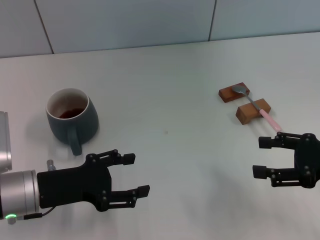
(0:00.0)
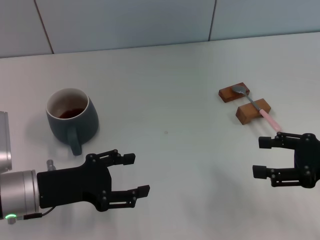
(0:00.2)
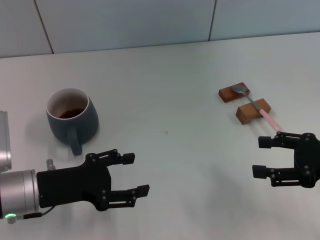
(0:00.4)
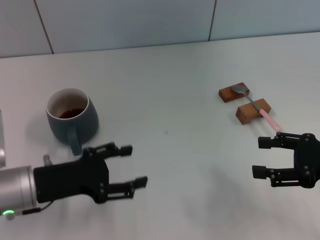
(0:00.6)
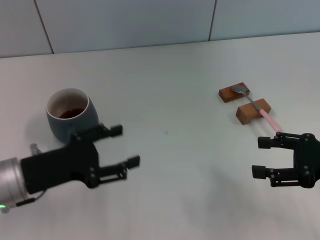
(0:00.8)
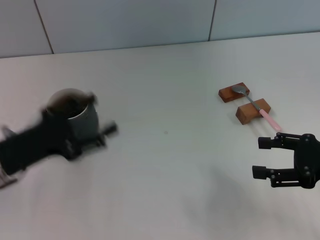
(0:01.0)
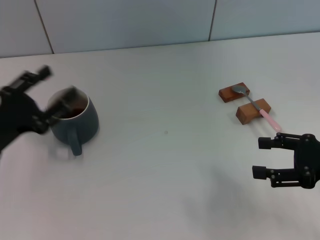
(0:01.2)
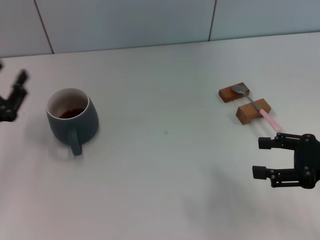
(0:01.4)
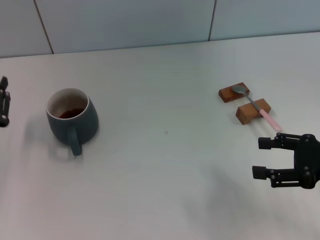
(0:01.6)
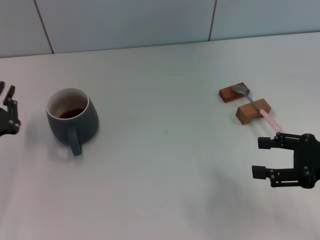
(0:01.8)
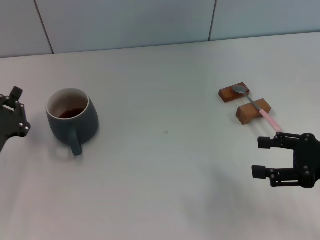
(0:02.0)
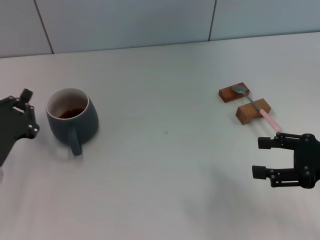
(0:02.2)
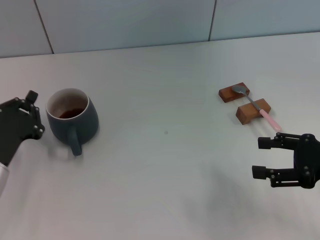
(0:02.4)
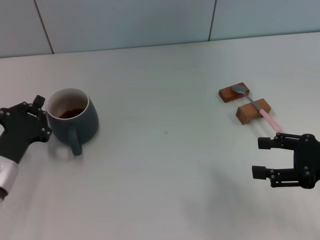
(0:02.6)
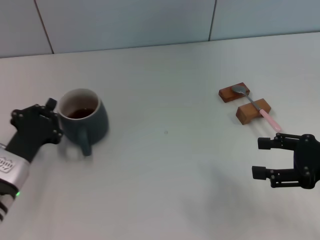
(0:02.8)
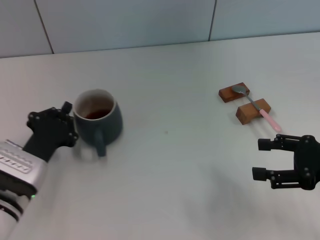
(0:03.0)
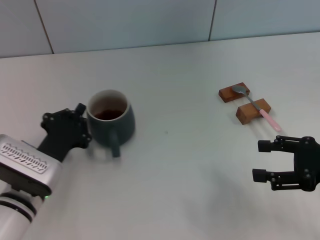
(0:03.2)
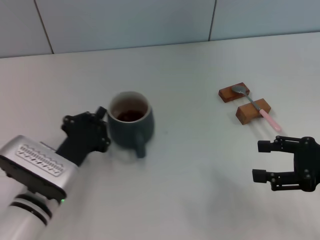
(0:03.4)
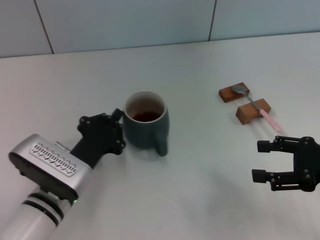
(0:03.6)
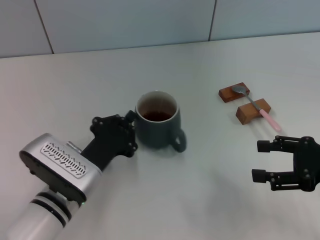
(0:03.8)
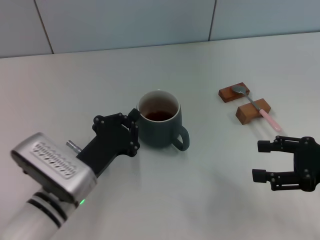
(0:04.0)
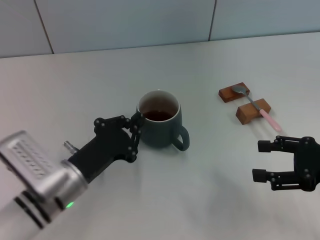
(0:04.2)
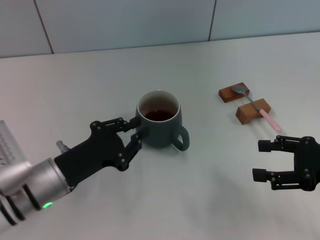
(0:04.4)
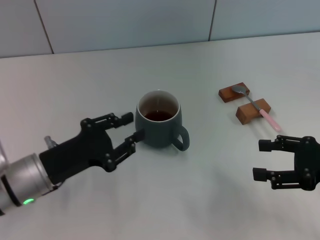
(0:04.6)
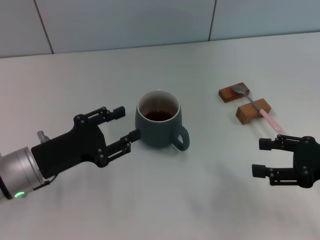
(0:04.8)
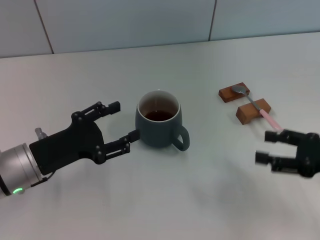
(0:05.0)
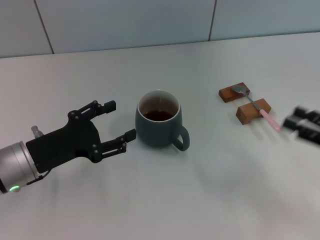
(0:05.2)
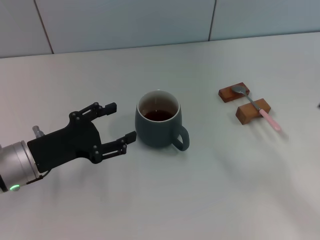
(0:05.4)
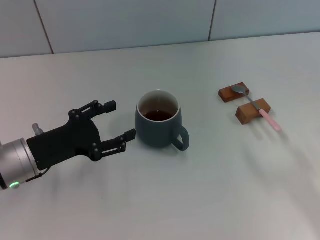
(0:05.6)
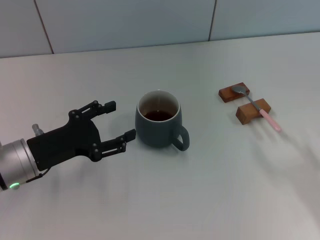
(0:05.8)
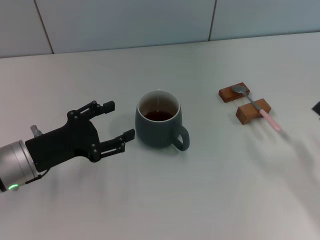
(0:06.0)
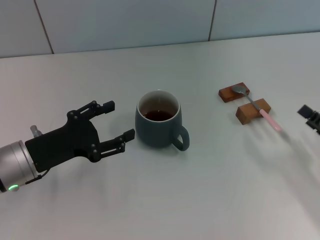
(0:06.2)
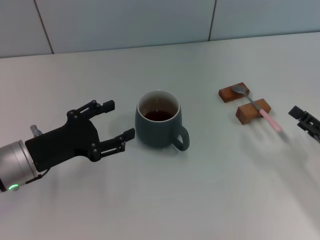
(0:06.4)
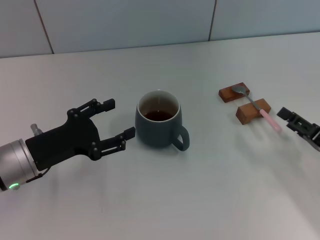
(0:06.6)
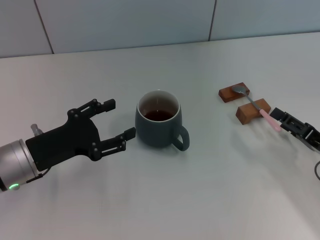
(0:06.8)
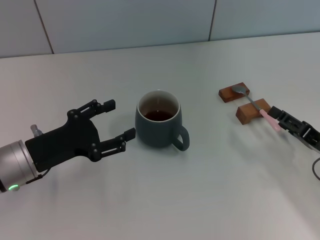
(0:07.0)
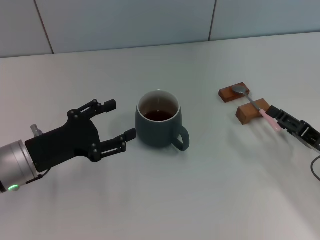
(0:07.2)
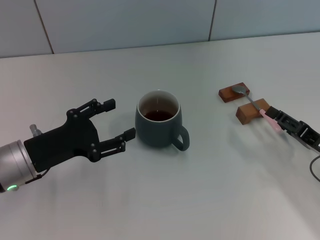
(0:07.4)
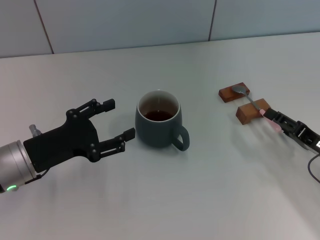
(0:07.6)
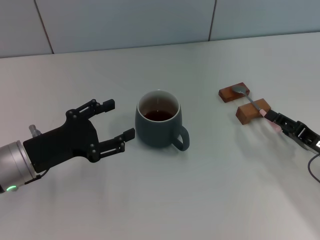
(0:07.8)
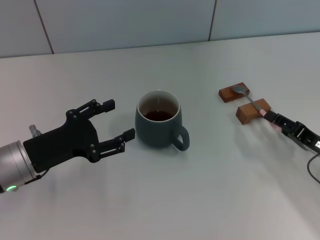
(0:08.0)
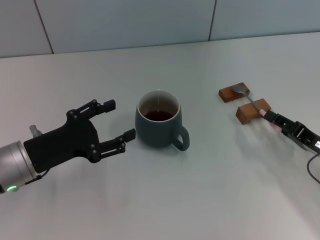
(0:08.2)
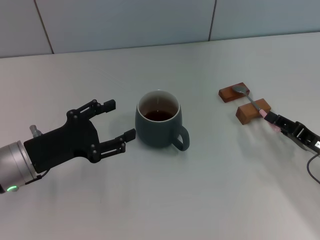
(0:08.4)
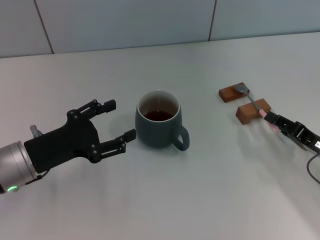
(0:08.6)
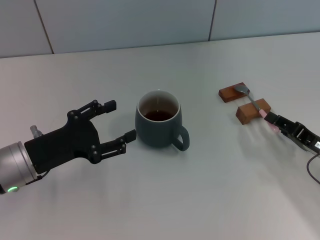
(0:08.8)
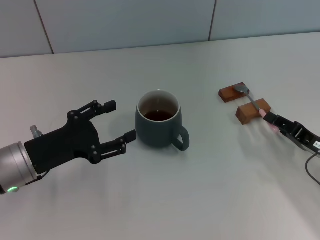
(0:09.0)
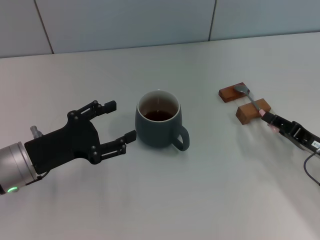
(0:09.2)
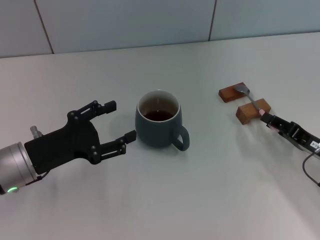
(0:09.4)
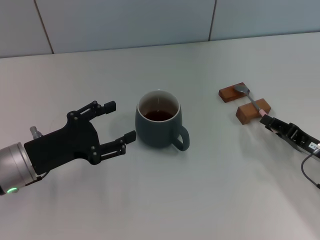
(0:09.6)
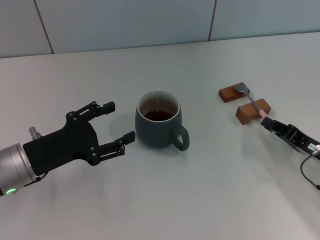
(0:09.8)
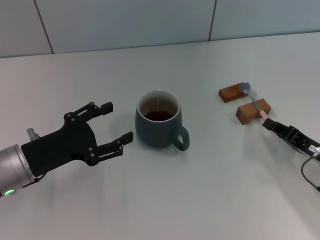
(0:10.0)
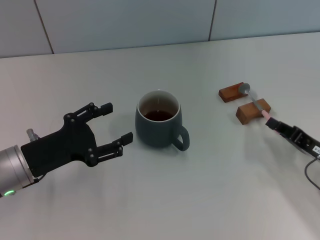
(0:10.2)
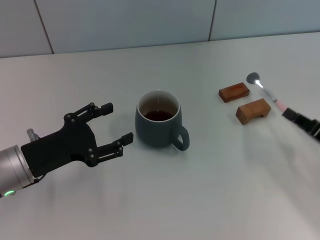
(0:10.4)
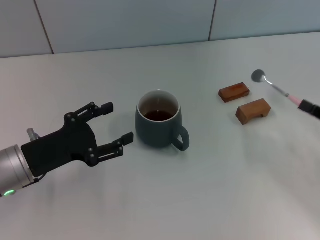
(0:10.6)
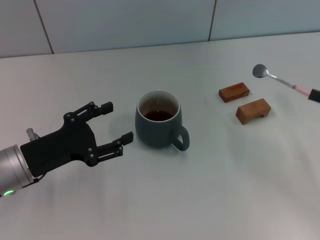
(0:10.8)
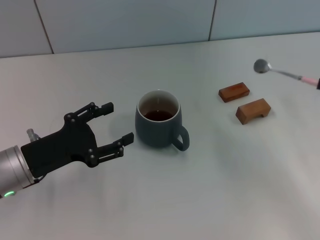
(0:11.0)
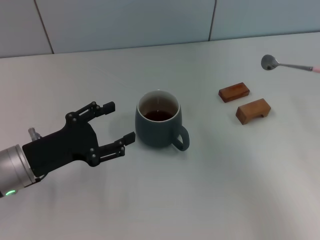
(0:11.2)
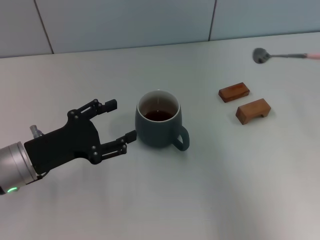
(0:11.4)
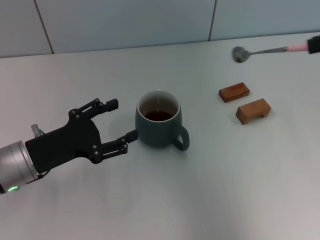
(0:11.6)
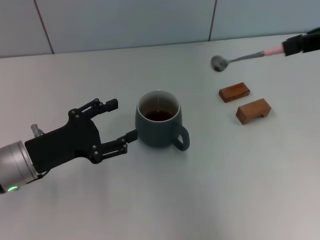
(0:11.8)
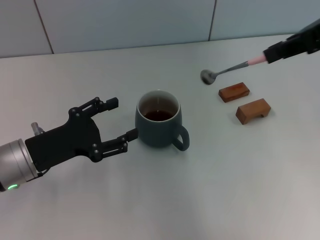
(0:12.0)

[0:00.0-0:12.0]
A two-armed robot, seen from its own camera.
Task of the whole recording: Move the grey cup to the center, lift the pink spoon, stir it three times in the cup, and put the spoon into the cup.
Step, 0:00.0 to 0:05.2: Move the cup with coffee to the center of view with the left gripper.
Step, 0:05.4 to 0:10.8: Pick up the spoon with the right gripper.
0:00.0 to 0:01.6: The left gripper is displaced to the left by approximately 5 cm, and closes up.
0:01.6 to 0:03.0: The left gripper is displaced to the right by approximately 10 cm, and closes.
0:04.4 to 0:06.0: The right gripper is displaced downward by roughly 10 cm. The left gripper shifts by approximately 5 cm, and opens up.
0:06.0 to 0:07.6: The right gripper shifts by approximately 5 cm.
0:07.6 to 0:09.0: The right gripper closes up.
0:09.0 to 0:10.4: The grippers move only a little.
0:10.4 to 0:12.0: The right gripper goes roughly 30 cm upward.

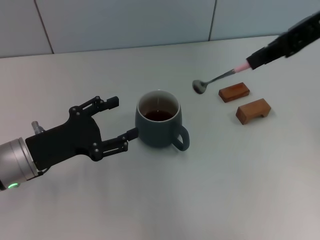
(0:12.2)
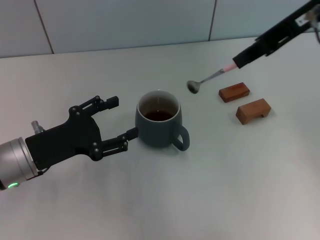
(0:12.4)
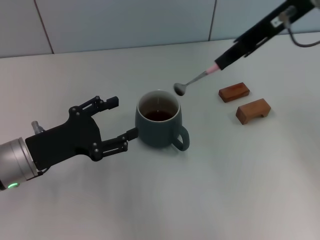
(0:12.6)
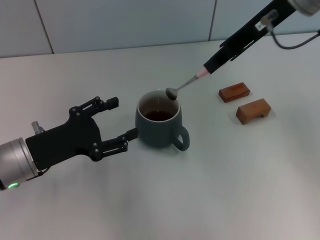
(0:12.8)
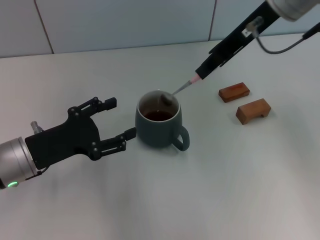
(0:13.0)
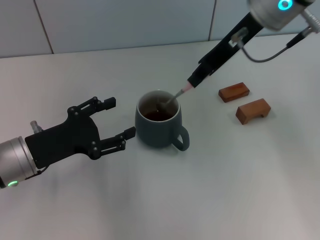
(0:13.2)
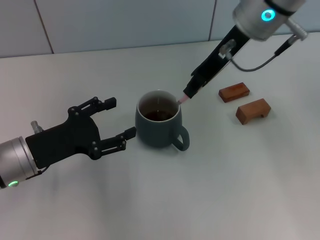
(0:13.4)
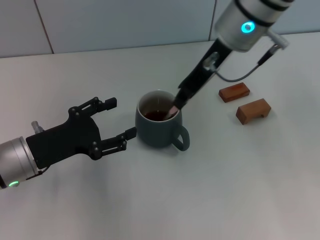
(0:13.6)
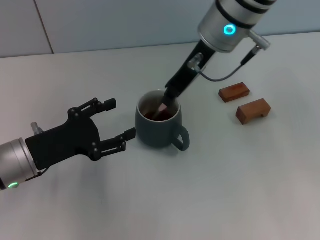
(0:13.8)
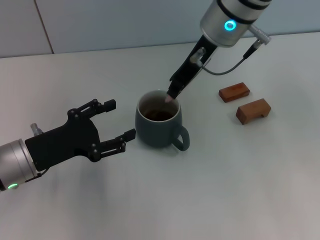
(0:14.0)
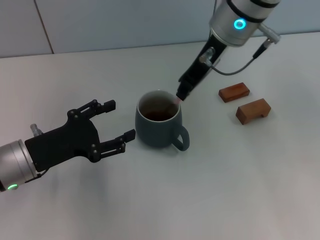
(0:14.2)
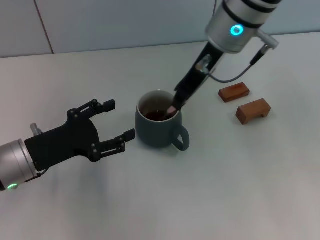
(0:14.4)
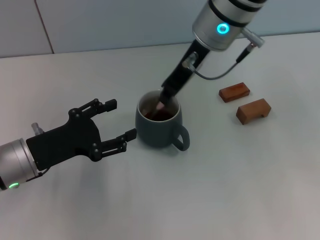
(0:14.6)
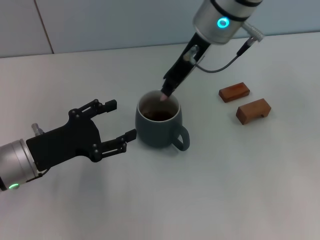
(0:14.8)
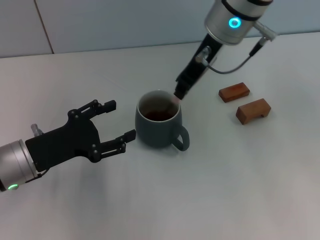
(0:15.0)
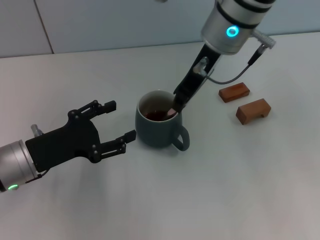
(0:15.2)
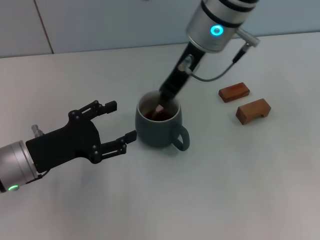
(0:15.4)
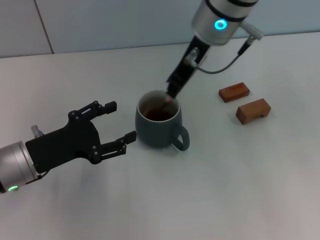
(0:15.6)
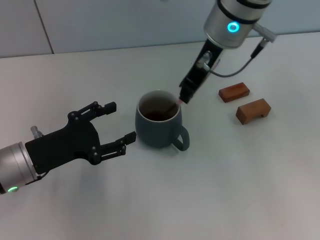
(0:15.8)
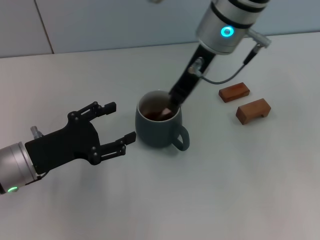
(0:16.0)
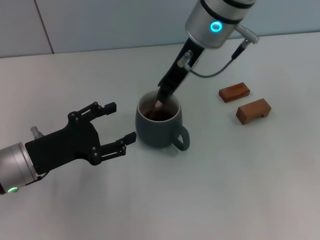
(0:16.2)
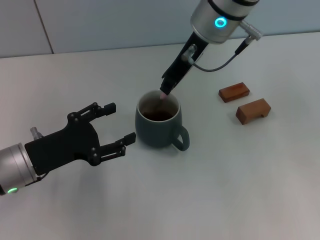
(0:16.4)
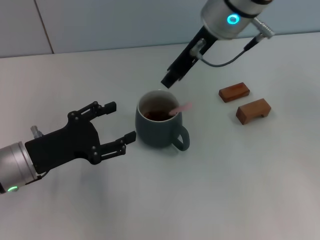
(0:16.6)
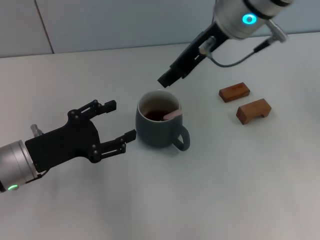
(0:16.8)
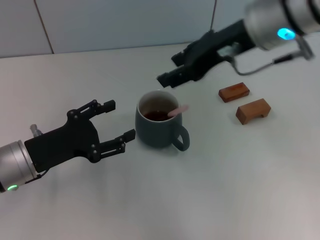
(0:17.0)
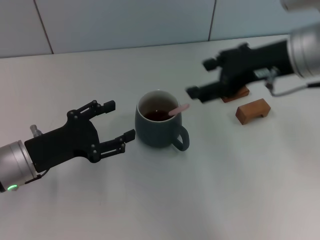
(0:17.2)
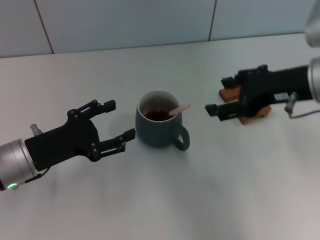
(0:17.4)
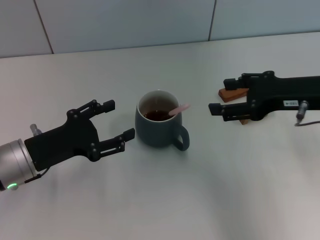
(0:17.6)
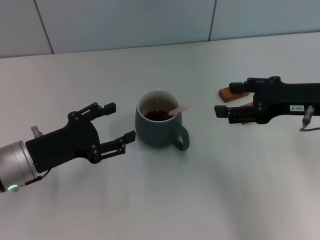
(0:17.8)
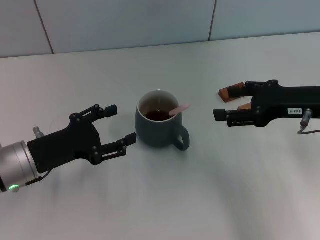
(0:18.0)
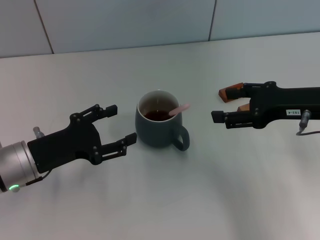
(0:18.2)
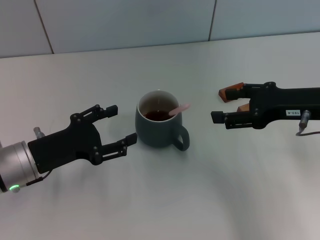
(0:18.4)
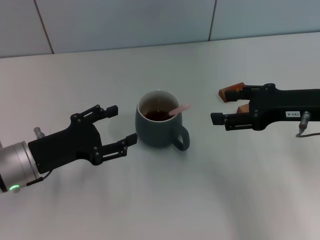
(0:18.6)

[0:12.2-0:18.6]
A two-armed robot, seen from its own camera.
Task of the whole recording: Move the grey cup to the center, lift the pink spoon, stir it three times in the cup, and put the spoon into the cup.
Step, 0:12.2 to 0:16.8: Stir the coffee in the cup with the right gripper.
0:12.2 to 0:13.8: The right gripper heads to the left, downward and forward, covering about 20 cm.
0:13.8 to 0:15.4: There are only small adjustments of the grippers.
0:15.4 to 0:17.0: The right gripper shifts roughly 10 cm to the right and backward, and opens up.
0:17.0 to 0:18.6: The right gripper is displaced to the right, downward and backward by roughly 15 cm, and opens its fingers.
